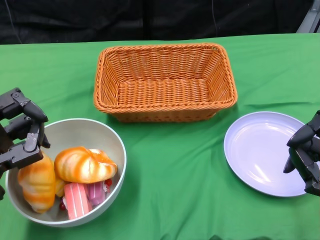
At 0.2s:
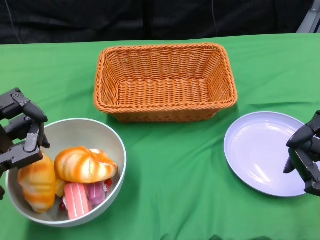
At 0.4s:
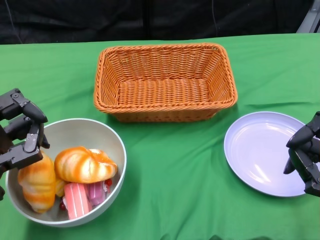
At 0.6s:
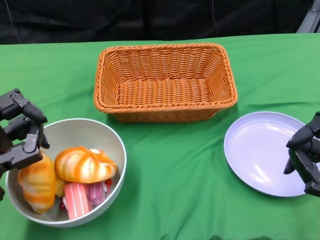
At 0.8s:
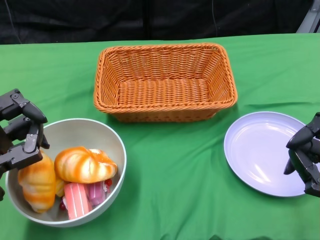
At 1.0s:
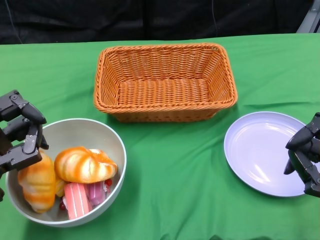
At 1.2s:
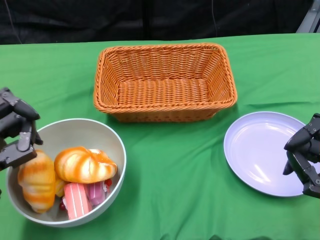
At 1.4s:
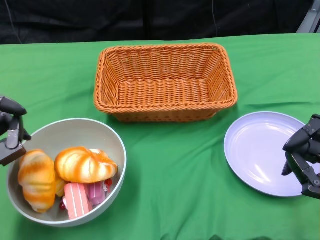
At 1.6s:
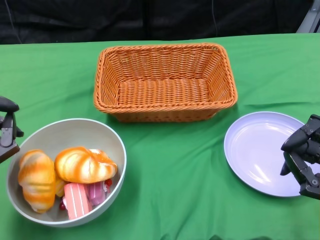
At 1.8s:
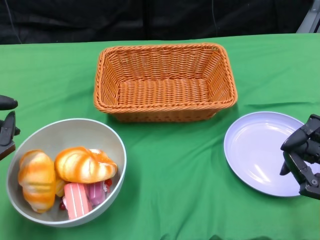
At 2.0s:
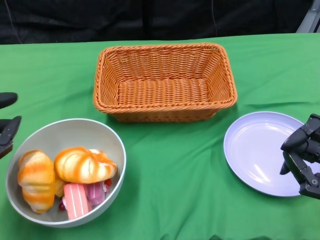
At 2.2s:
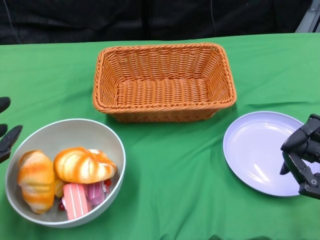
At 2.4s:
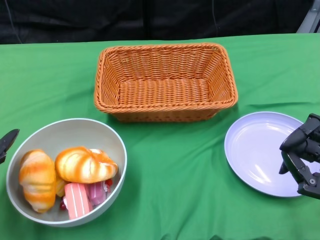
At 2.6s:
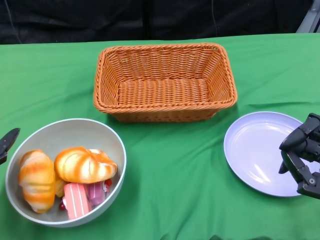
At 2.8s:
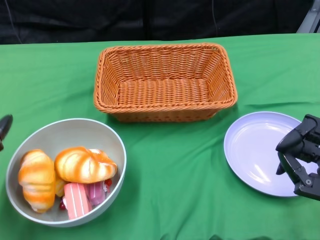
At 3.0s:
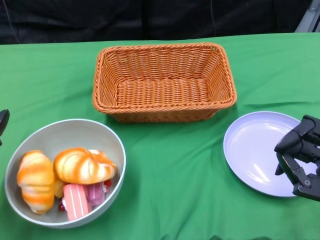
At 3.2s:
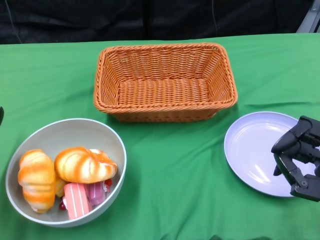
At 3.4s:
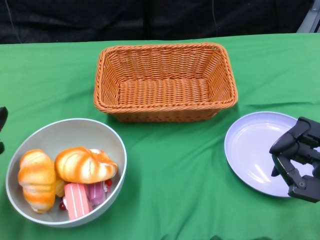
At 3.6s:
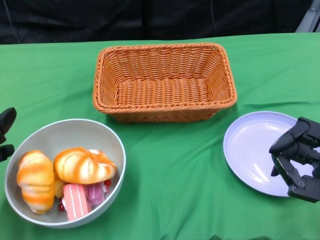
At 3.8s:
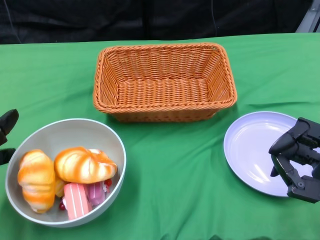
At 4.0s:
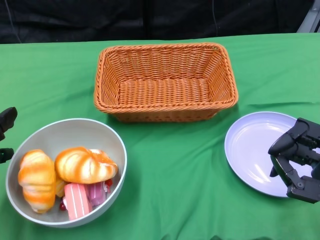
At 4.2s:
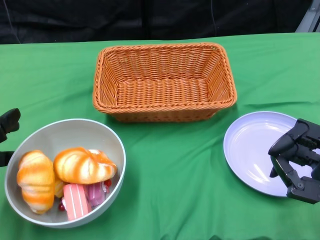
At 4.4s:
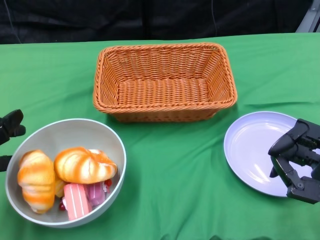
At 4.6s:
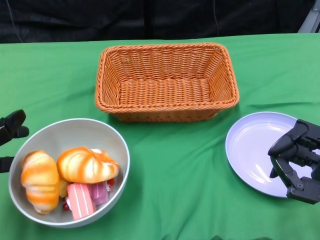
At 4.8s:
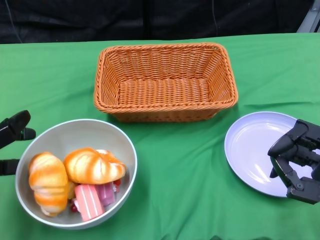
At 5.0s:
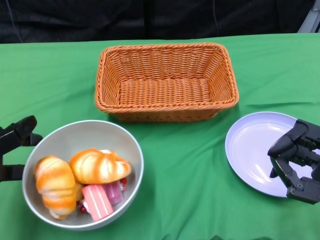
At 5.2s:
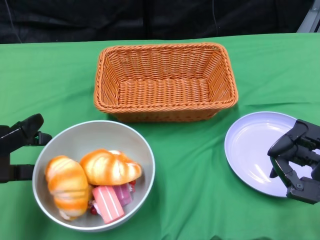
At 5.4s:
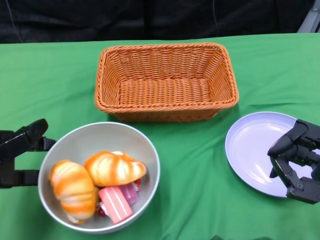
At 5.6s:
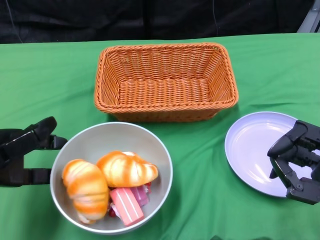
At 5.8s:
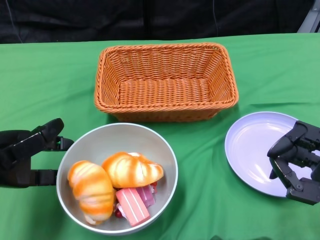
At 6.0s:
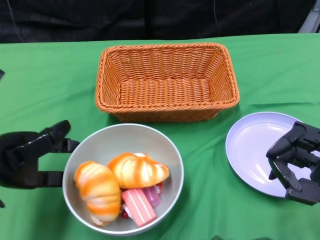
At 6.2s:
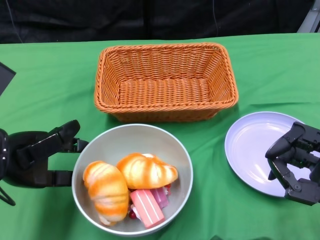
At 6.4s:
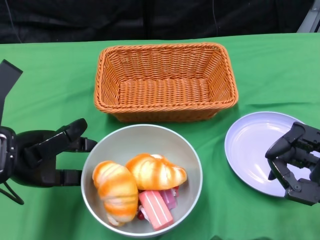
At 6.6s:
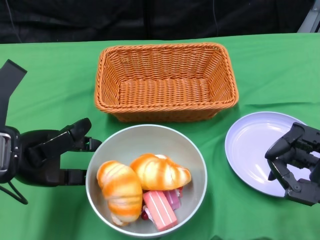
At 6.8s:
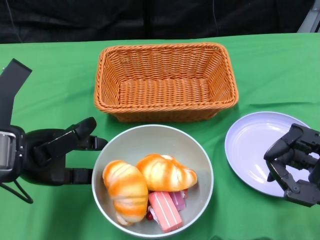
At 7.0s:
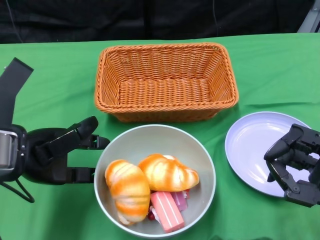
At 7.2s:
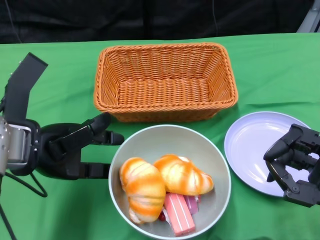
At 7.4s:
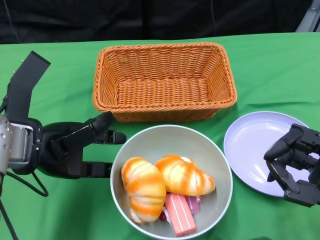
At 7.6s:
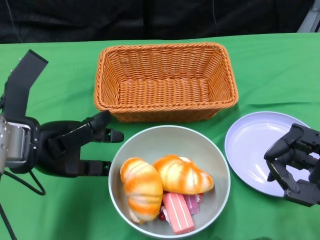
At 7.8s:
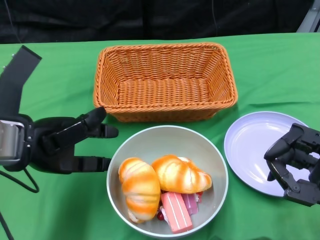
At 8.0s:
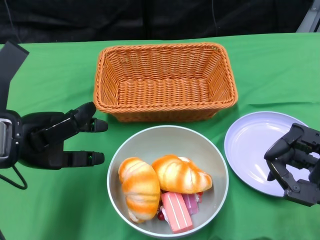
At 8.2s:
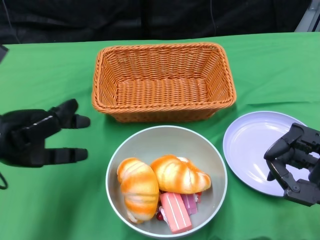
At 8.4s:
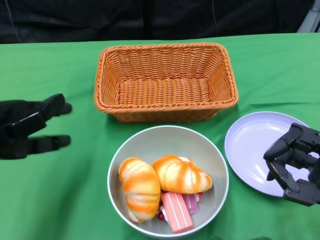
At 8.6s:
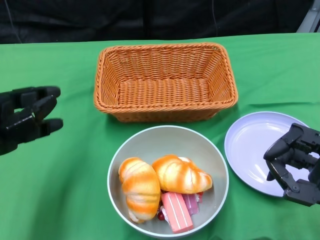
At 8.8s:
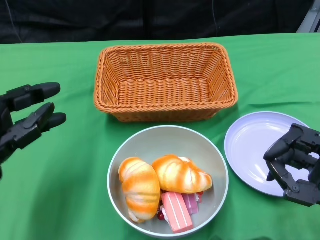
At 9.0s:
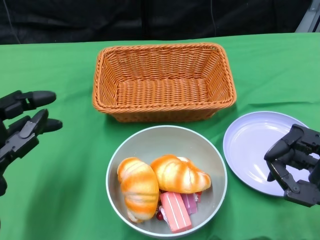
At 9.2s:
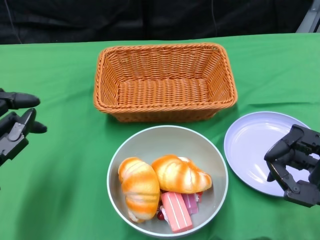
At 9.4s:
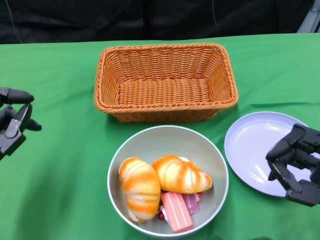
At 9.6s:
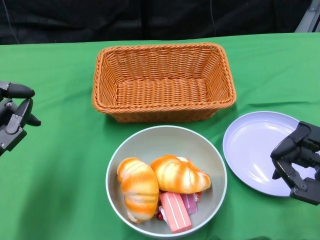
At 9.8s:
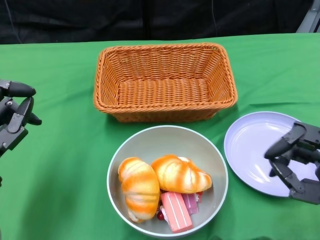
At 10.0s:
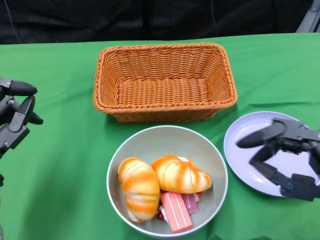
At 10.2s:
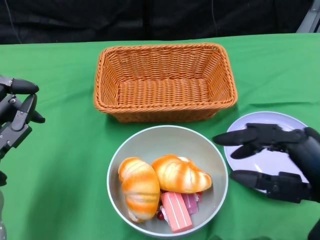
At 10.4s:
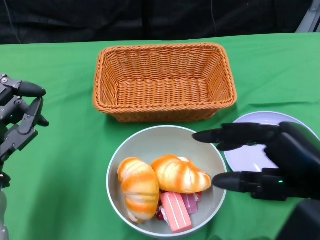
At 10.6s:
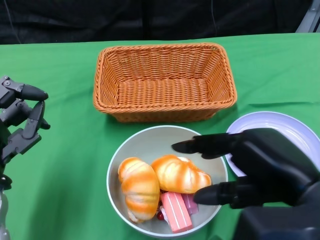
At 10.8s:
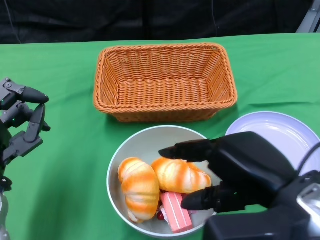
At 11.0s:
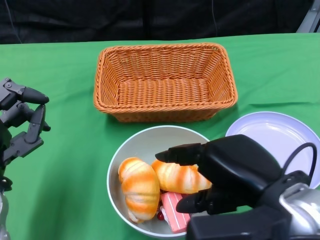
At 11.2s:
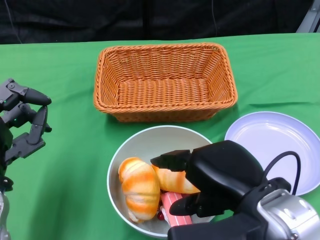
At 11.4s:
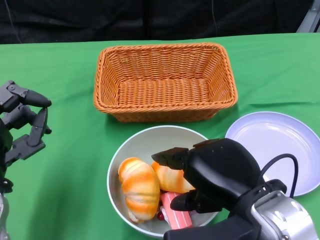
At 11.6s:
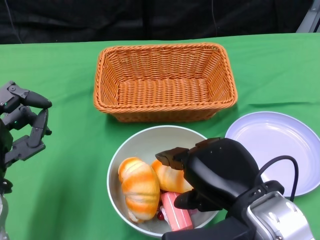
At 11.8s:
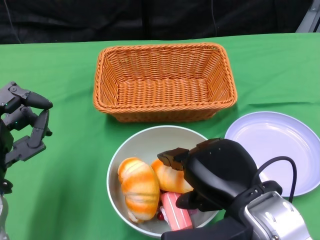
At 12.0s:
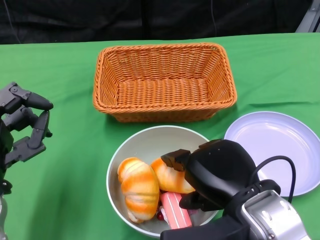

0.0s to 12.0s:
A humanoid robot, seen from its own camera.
Step, 0.0s to 7.4s: Push the bowl to the center of the table using the left gripper.
1.6s to 3.0s: The left hand changes place by some 5 cm.
4.4s to 6.0s: The left hand changes place by about 5 cm.
6.0s to 7.6s: The left hand travels to the right by approximately 5 cm.
7.6s to 9.0s: The left hand moves backward and downward, about 10 cm.
9.0s to 10.4s: The right hand travels upward by approximately 10 cm.
10.4s to 12.0s: The right hand shifts approximately 10 cm to the left.

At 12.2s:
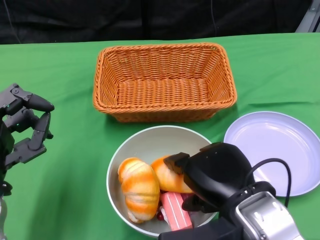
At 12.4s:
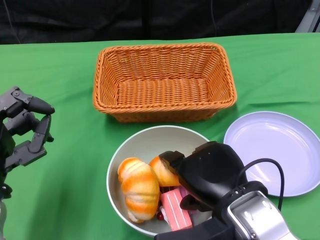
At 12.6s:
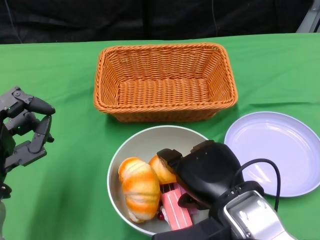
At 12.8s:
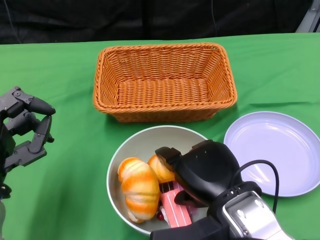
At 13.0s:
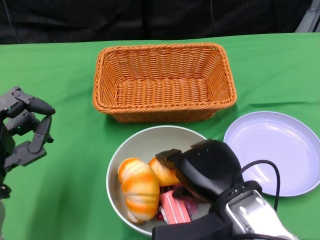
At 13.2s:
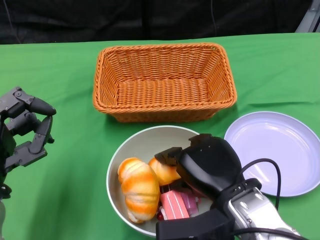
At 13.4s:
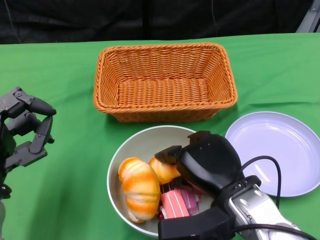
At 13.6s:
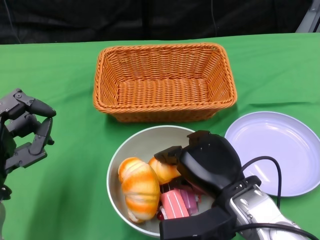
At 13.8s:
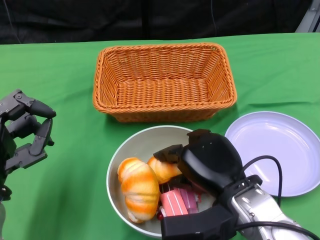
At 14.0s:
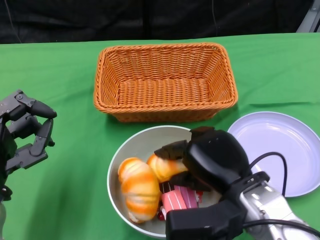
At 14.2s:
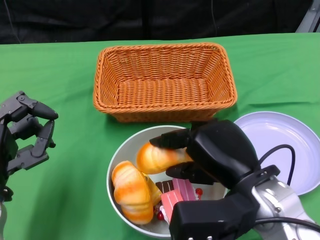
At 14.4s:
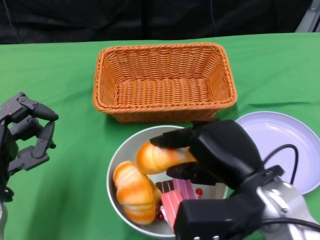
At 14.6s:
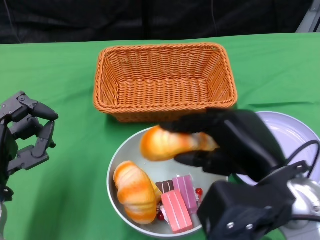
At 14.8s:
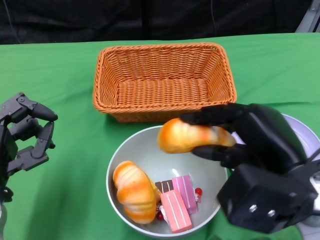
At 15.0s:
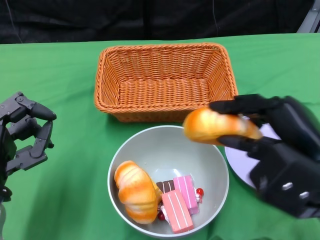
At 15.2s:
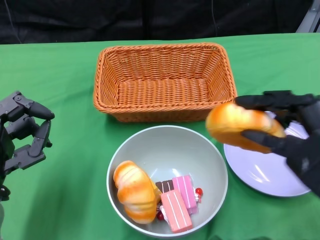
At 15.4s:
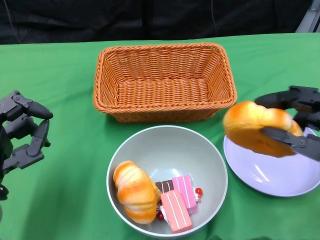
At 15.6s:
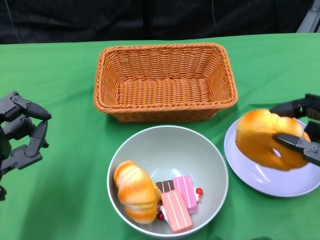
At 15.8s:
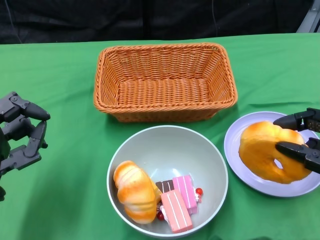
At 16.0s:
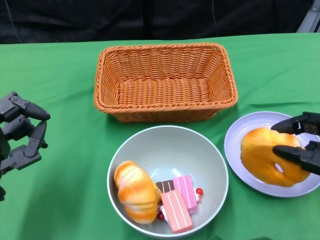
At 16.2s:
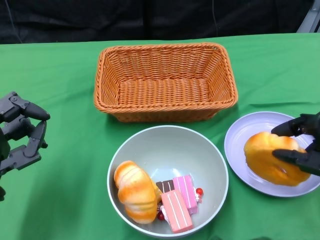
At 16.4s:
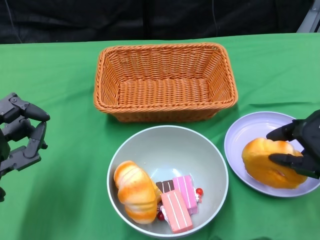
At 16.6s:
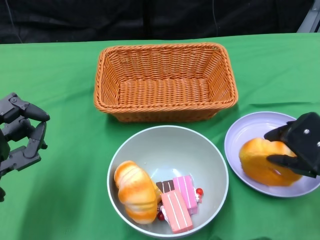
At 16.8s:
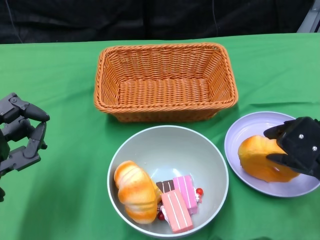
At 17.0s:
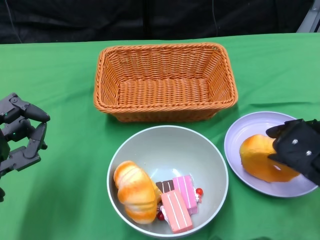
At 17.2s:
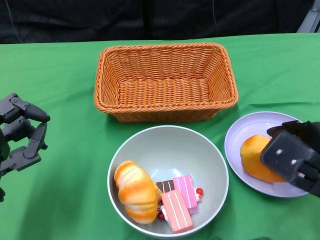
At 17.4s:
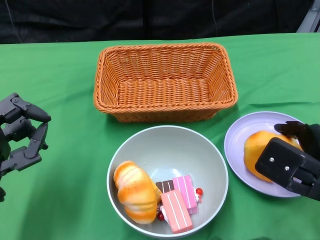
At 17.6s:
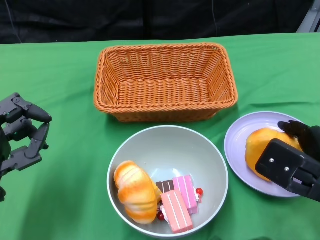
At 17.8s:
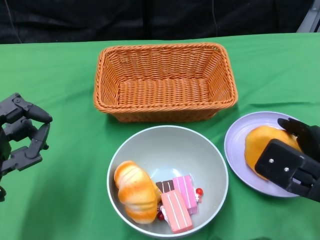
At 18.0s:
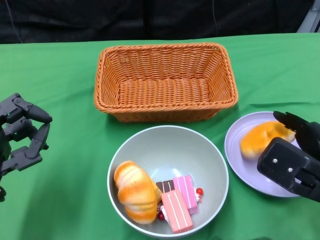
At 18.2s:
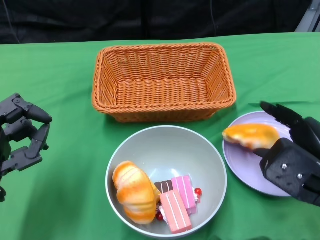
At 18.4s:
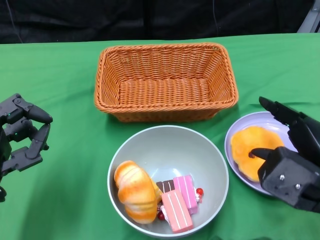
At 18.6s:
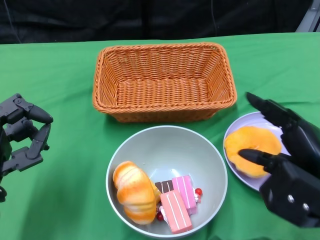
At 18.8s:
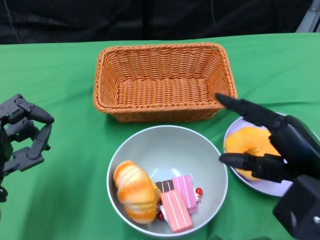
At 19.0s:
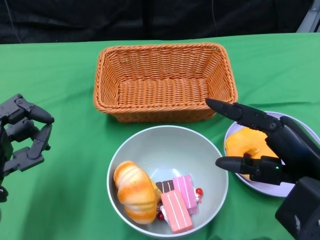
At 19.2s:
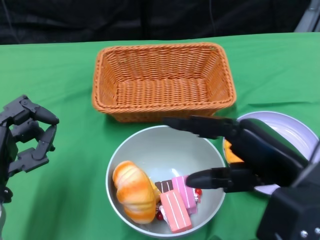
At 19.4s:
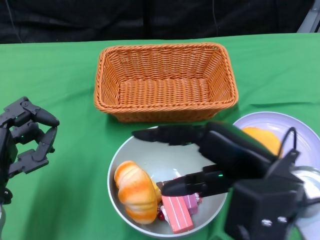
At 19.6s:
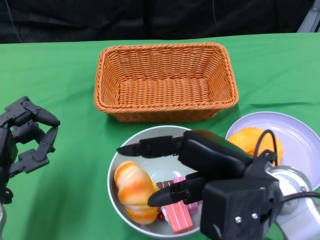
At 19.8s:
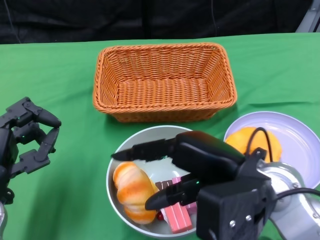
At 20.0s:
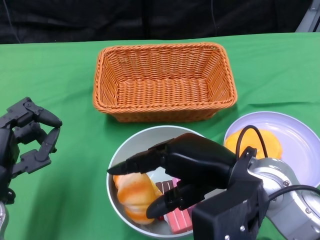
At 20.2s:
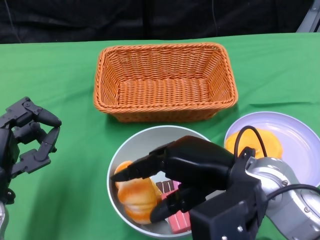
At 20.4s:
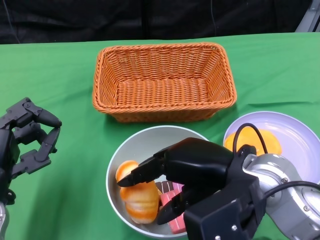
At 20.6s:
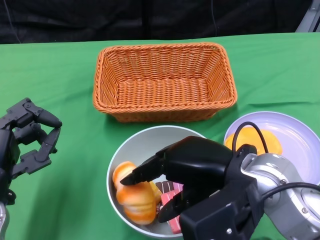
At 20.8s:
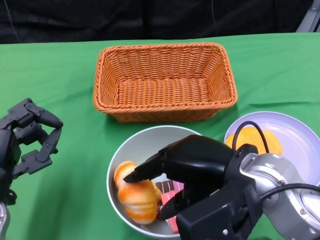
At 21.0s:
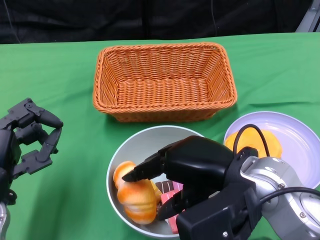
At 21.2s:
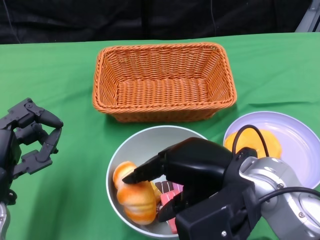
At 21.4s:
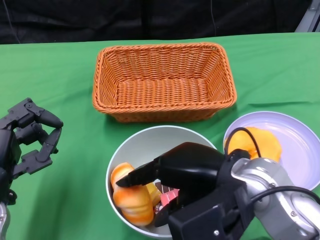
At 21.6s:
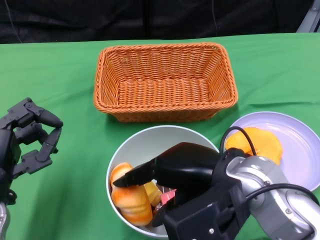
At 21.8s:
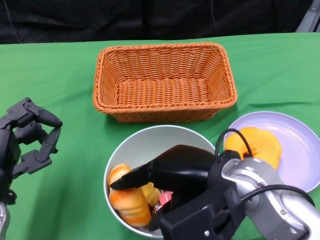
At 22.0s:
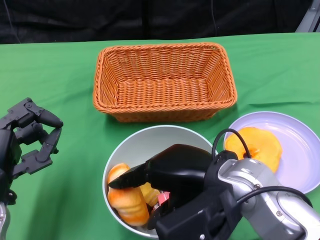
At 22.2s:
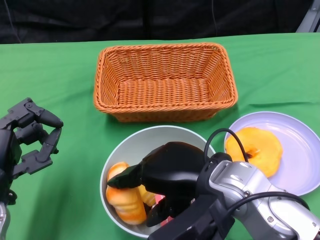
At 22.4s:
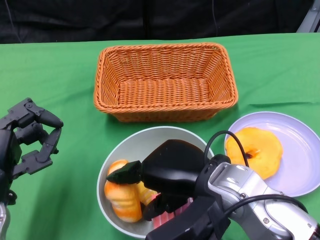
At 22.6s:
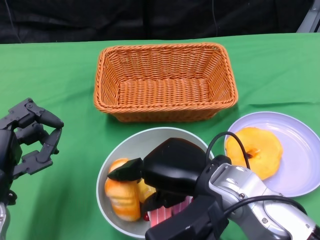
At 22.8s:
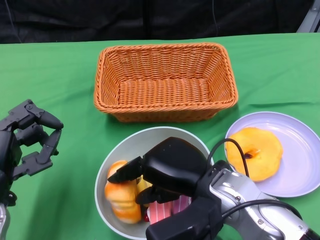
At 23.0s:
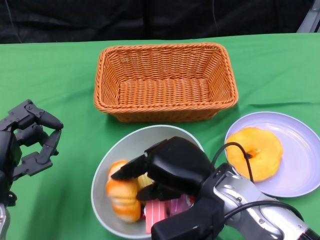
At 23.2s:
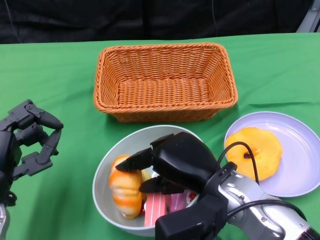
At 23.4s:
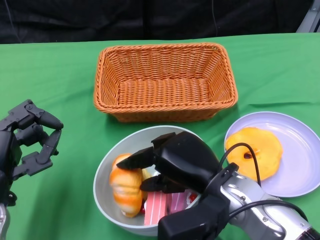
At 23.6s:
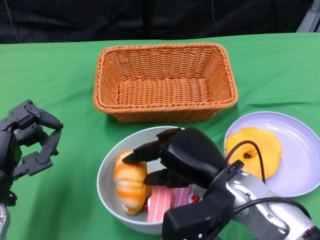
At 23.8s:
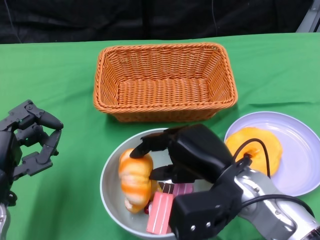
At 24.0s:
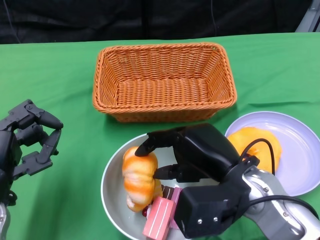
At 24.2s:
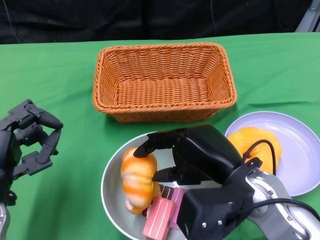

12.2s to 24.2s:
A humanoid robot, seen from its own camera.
12.2s to 13.8s: The right hand changes place by approximately 5 cm.
13.8s to 15.2s: The right hand heads to the right and upward, covering roughly 15 cm.
15.2s to 16.6s: The right hand travels downward by roughly 5 cm.
18.2s to 19.8s: The right hand moves to the left, about 10 cm.
21.2s to 22.6s: The hands move only a little.
